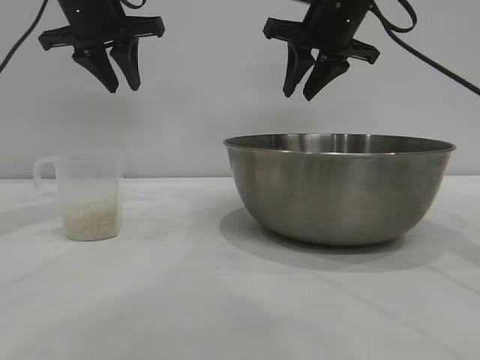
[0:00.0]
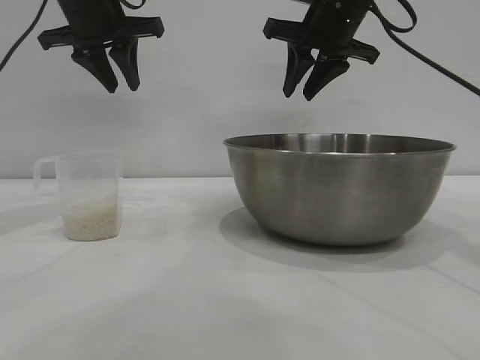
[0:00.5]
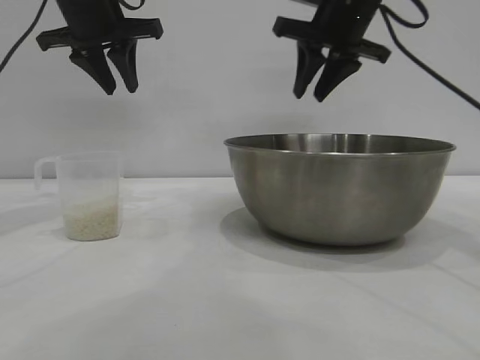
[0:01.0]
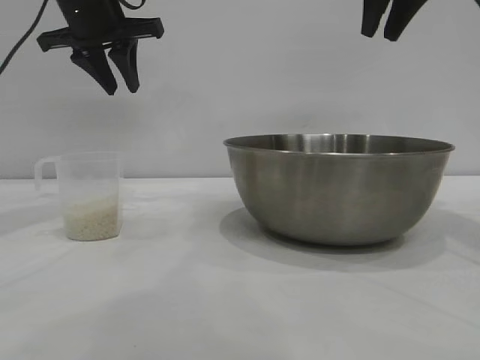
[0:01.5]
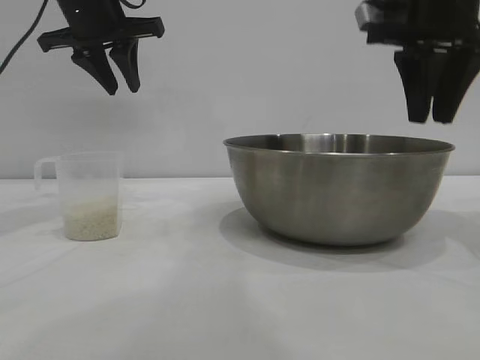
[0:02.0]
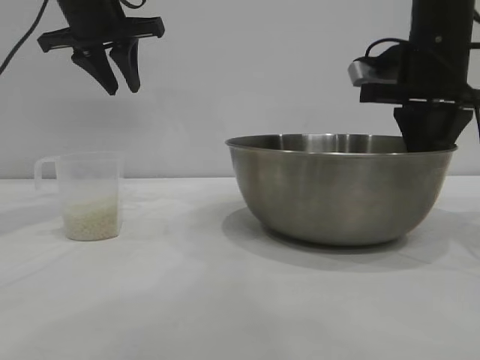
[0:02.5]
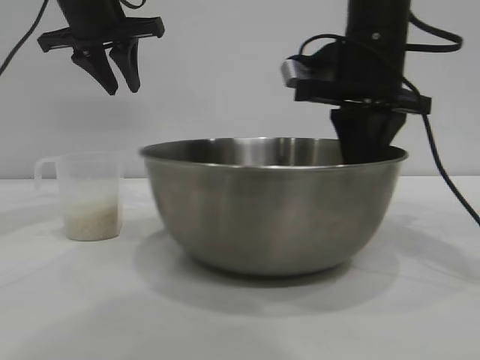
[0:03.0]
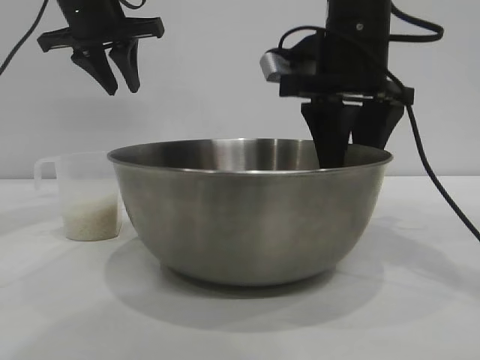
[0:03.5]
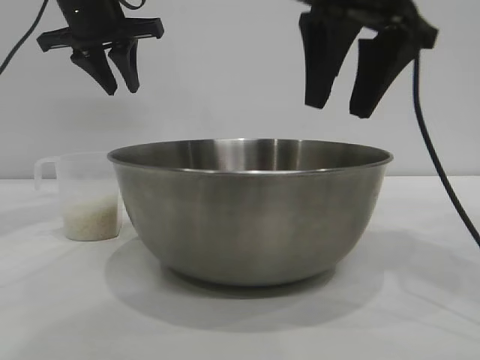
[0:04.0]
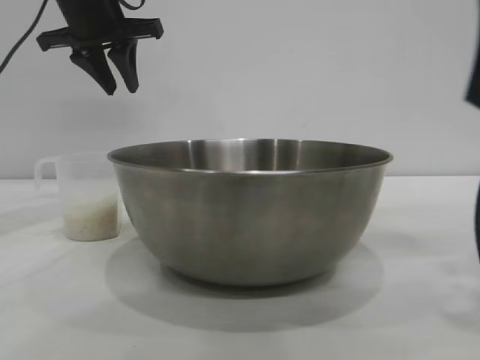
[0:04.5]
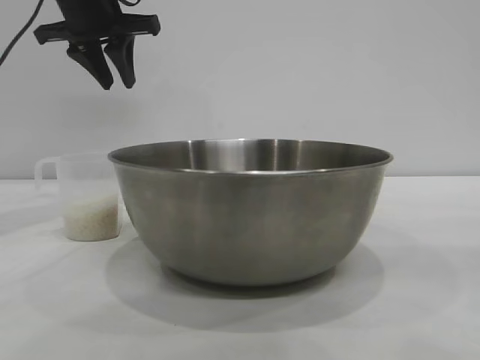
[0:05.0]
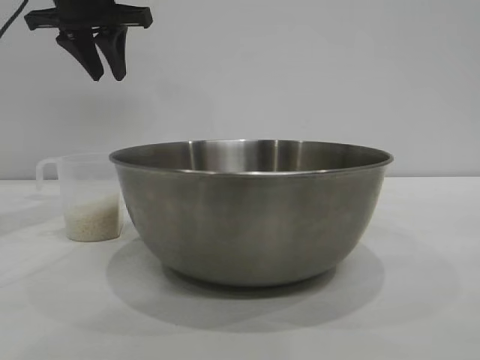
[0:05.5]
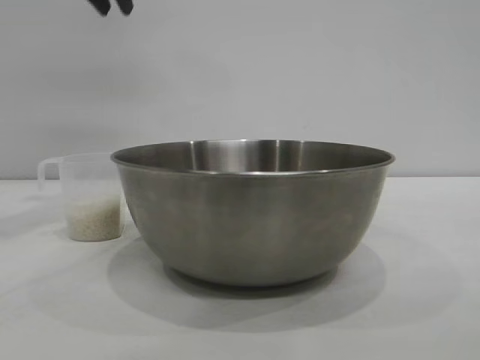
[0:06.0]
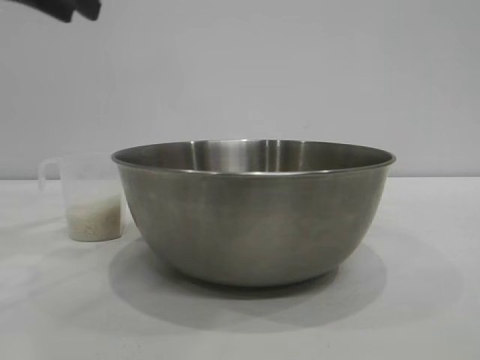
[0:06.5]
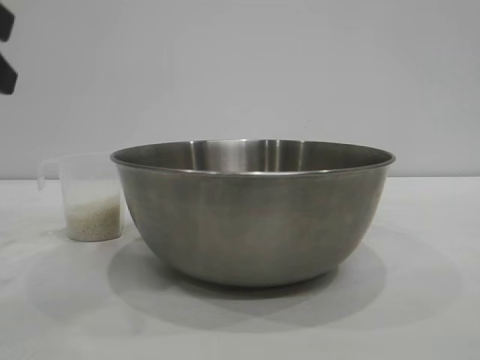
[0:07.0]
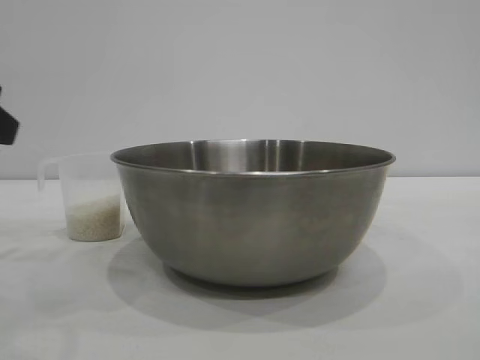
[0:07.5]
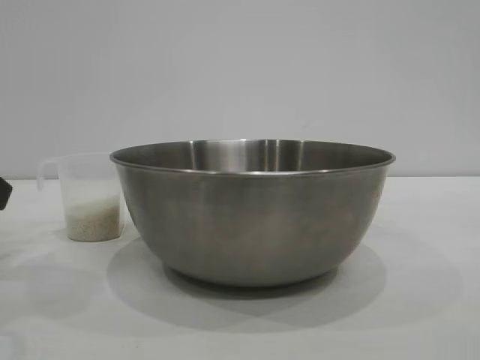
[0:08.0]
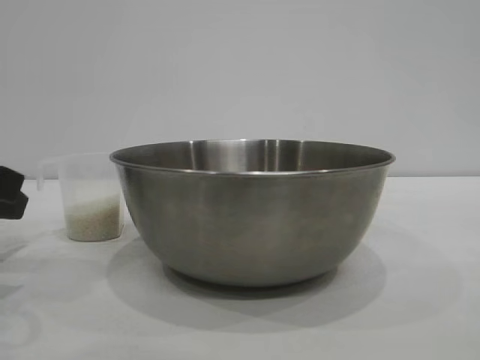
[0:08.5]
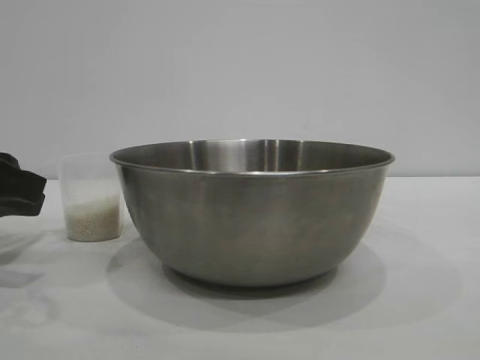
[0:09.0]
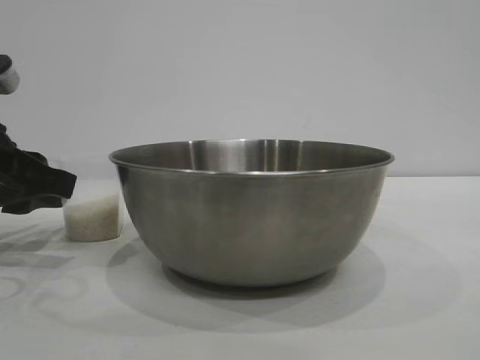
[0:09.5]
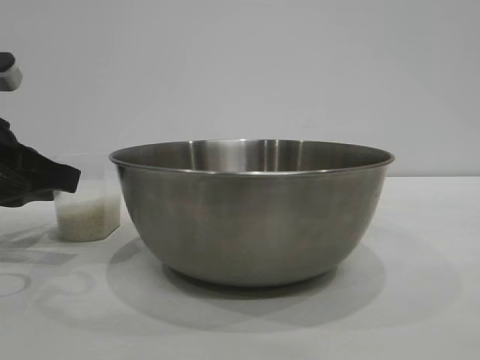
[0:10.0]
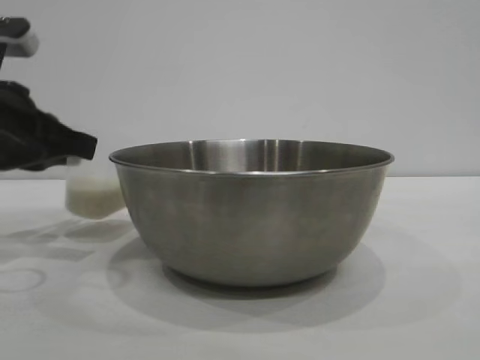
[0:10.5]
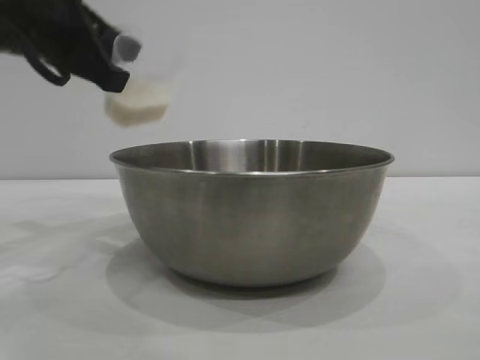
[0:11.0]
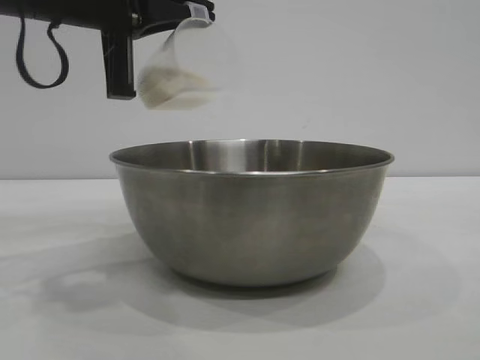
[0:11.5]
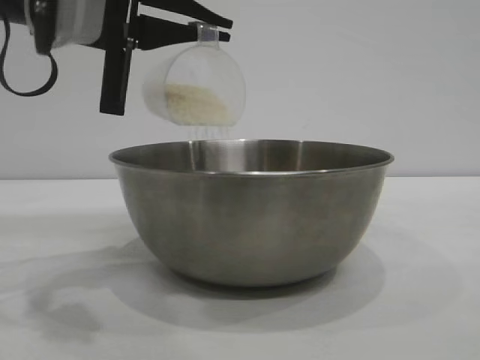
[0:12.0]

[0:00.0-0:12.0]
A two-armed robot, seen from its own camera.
Task of the whole recording: the right gripper grasp the rice container and place it in the center of the table, the left gripper grasp the rice scoop and pour the rice into the rice container.
Step, 0:00.0 to 0:03.5: Move the bowl to the center of view with the right gripper.
Step, 0:04.0 to 0:10.5: Pick up the cup with rice in it with the left gripper.

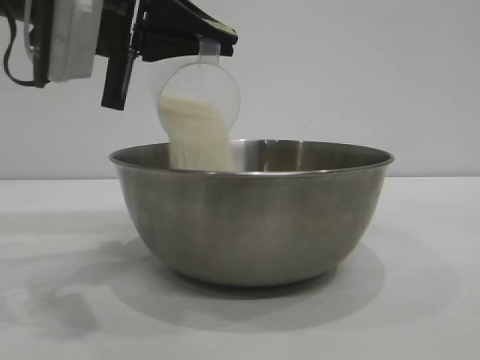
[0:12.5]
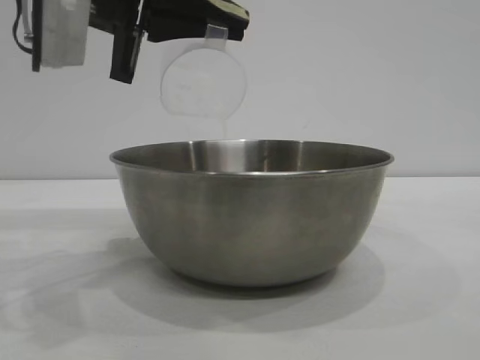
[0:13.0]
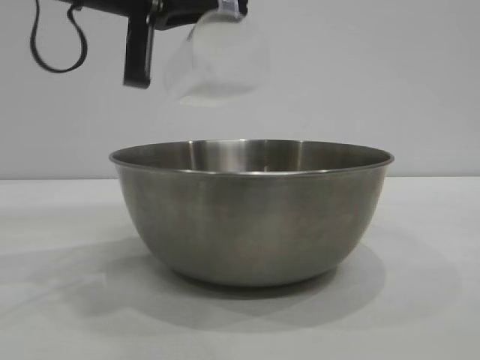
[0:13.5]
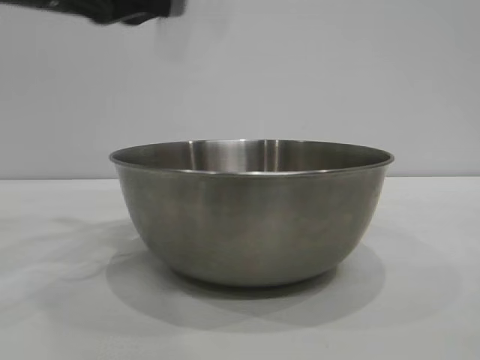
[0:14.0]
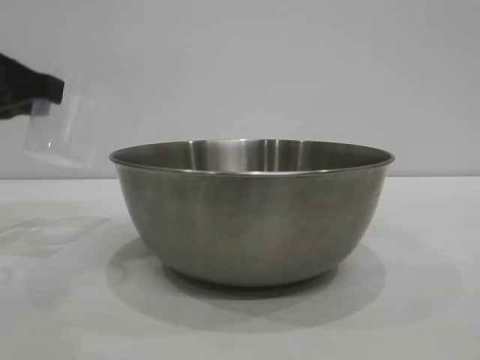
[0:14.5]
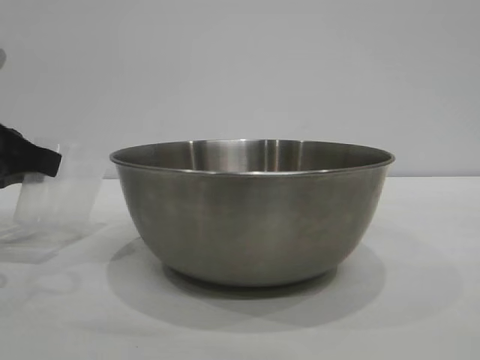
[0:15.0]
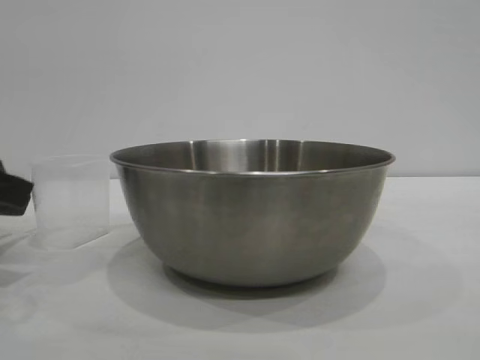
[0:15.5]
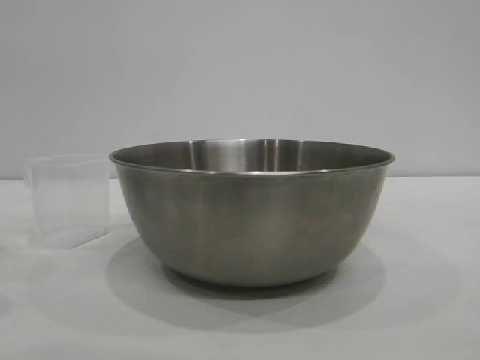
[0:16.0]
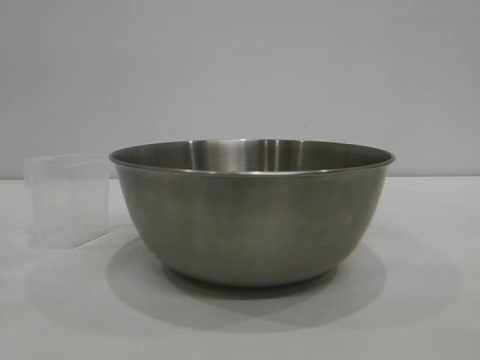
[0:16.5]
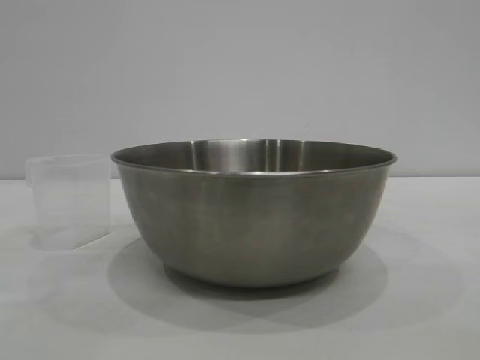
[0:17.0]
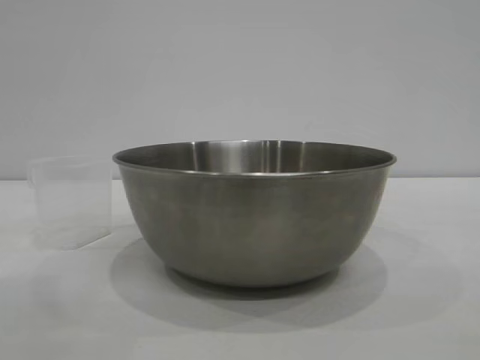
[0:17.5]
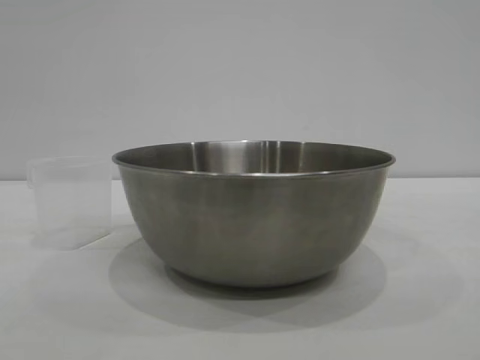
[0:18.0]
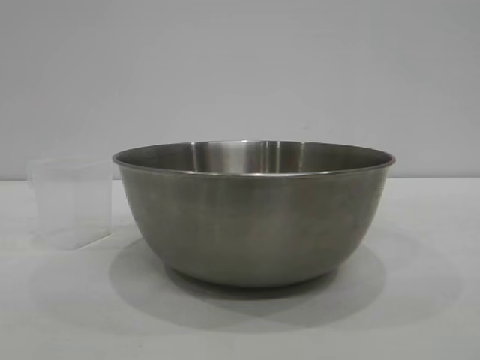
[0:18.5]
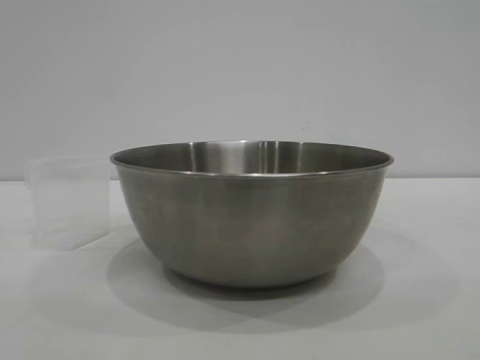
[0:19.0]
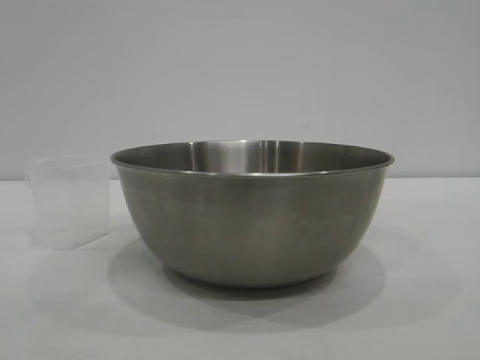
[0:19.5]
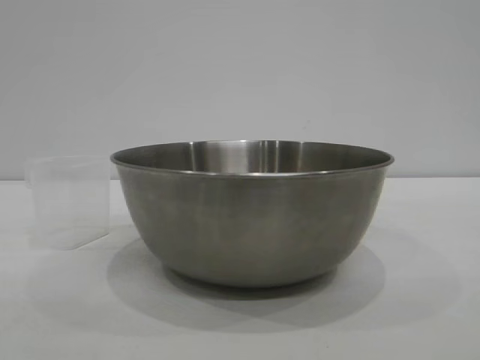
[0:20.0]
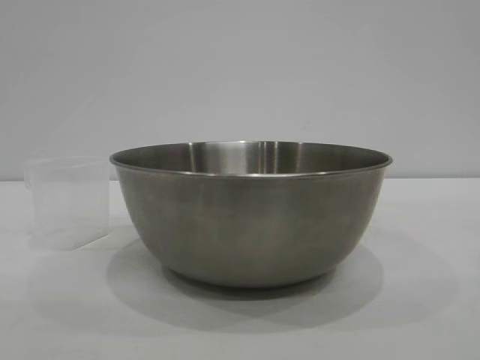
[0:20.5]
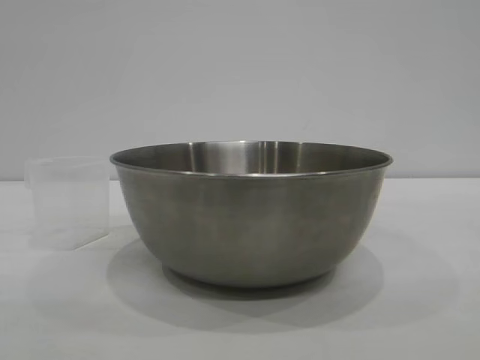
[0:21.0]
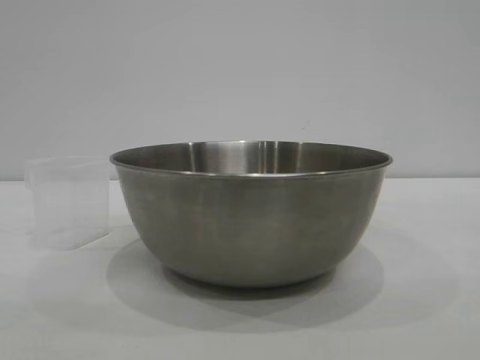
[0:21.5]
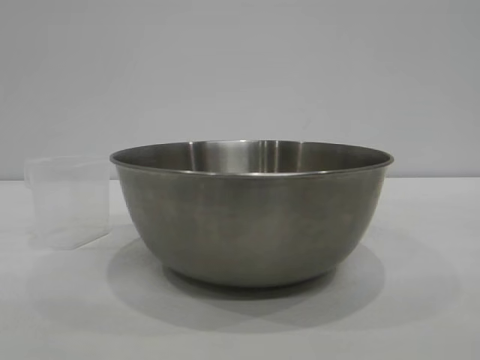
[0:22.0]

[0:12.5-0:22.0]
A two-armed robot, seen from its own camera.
Task of the whole recording: the right gripper grasp the rice container and place it in the center of the table, the left gripper grasp the rice scoop and pour the rice into the rice container.
Step, 0:13.5 to 0:15.5: Place the cup on the table with the left gripper.
